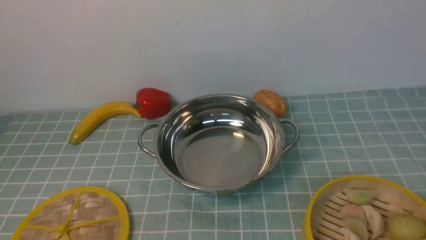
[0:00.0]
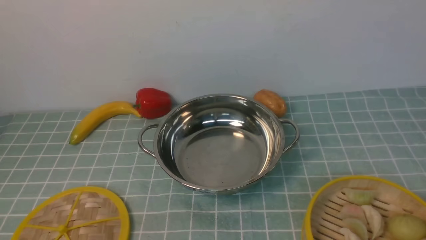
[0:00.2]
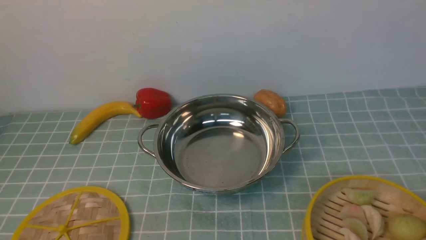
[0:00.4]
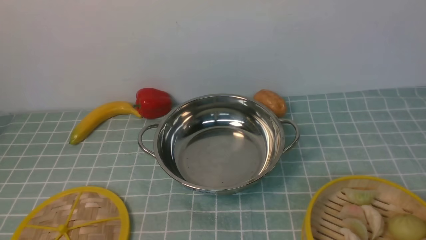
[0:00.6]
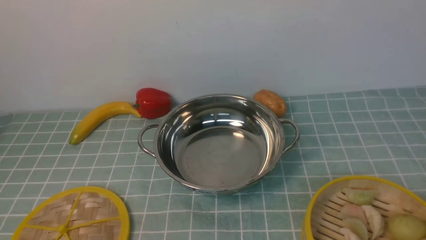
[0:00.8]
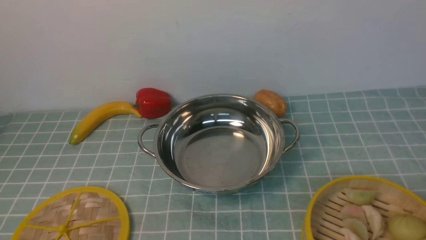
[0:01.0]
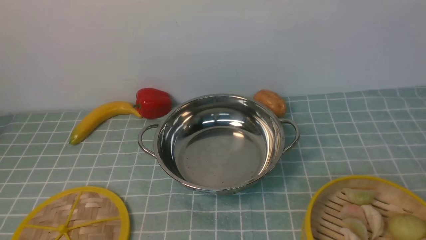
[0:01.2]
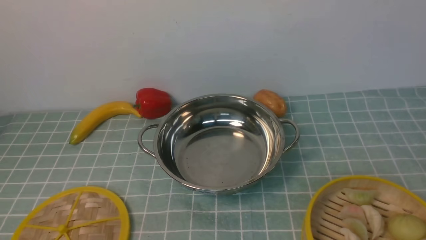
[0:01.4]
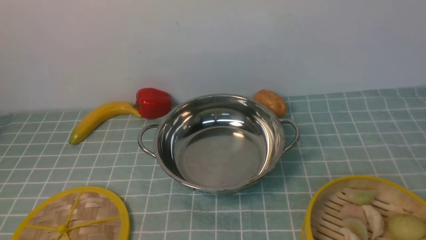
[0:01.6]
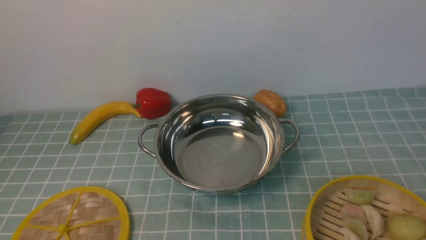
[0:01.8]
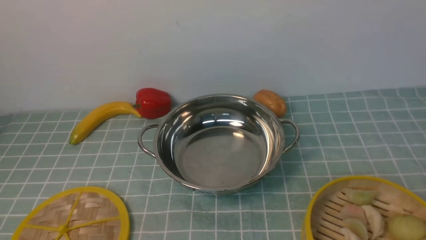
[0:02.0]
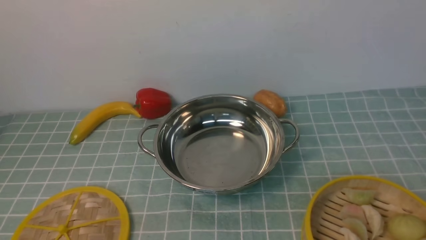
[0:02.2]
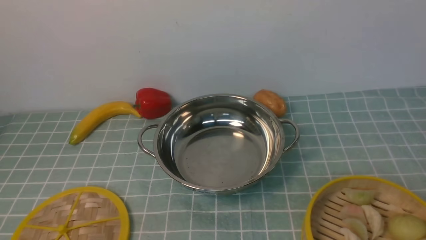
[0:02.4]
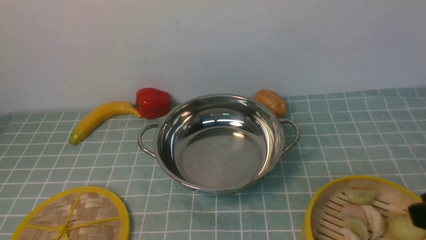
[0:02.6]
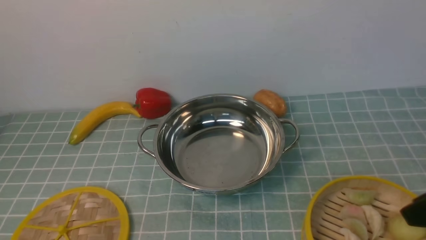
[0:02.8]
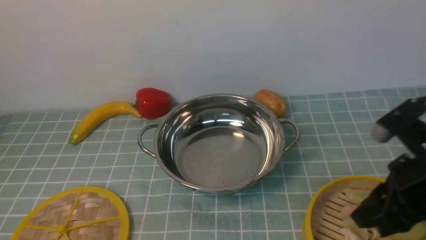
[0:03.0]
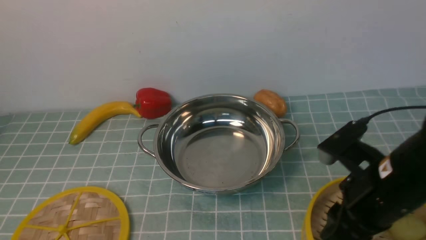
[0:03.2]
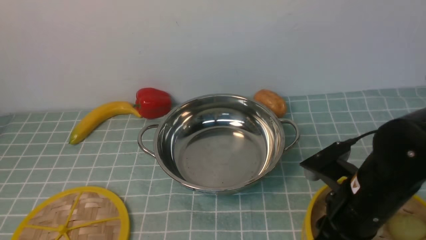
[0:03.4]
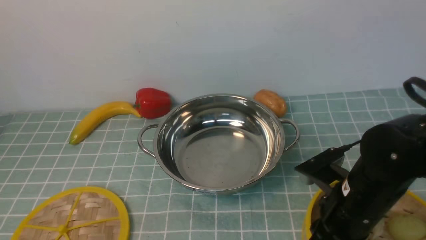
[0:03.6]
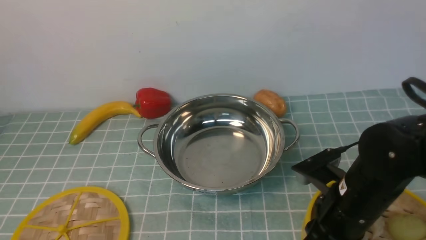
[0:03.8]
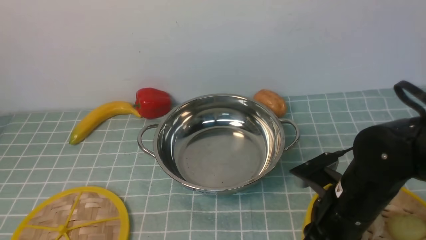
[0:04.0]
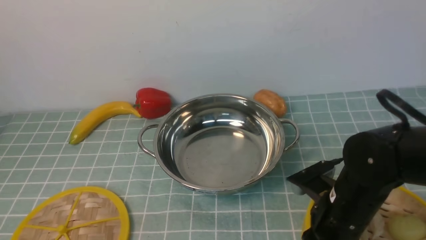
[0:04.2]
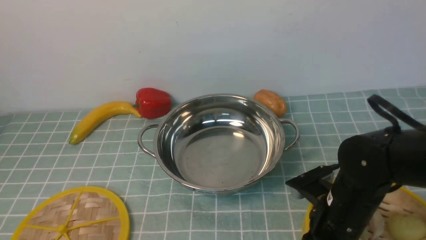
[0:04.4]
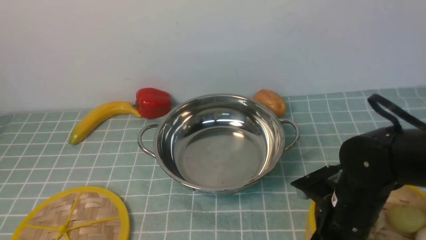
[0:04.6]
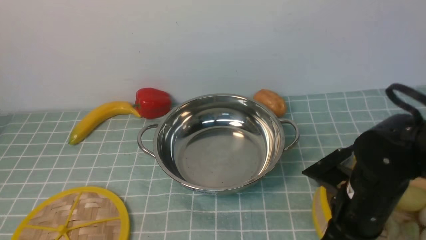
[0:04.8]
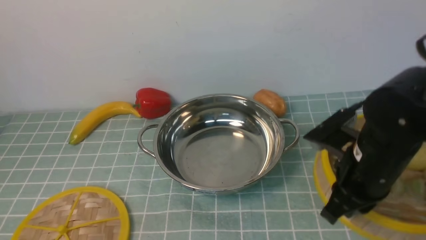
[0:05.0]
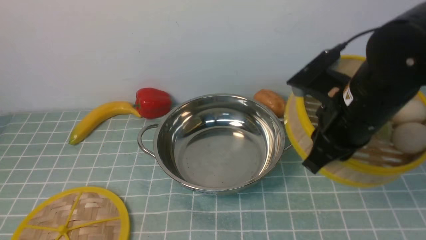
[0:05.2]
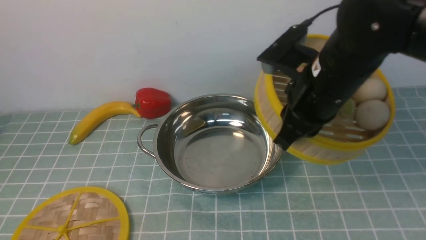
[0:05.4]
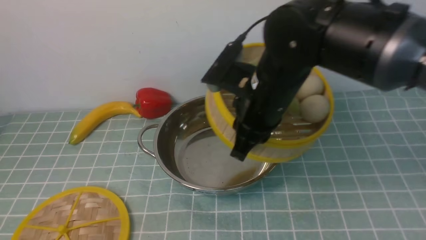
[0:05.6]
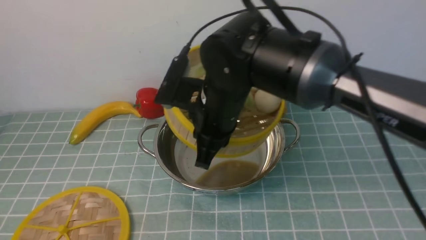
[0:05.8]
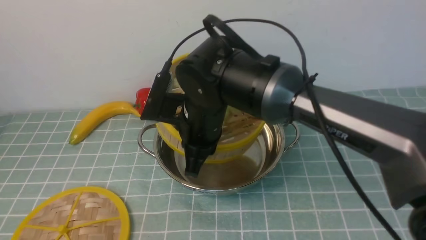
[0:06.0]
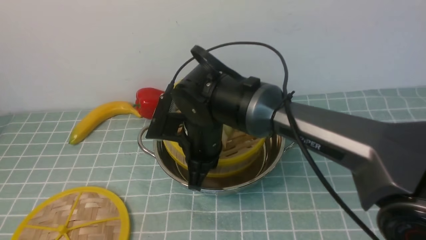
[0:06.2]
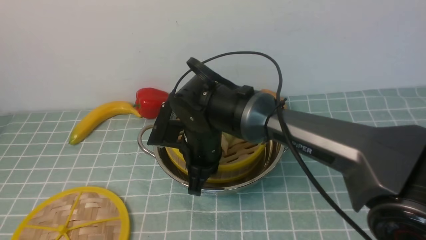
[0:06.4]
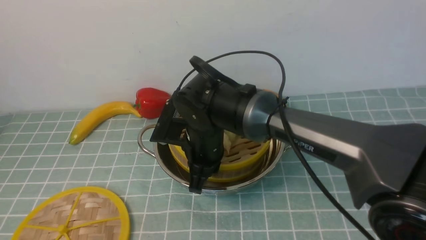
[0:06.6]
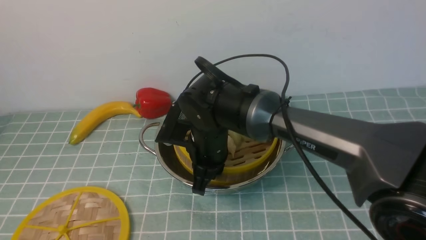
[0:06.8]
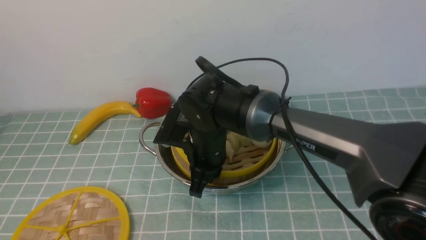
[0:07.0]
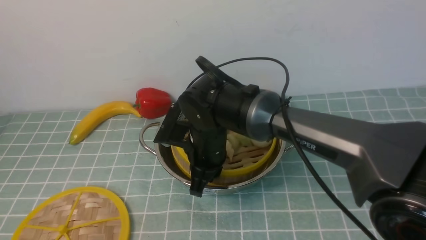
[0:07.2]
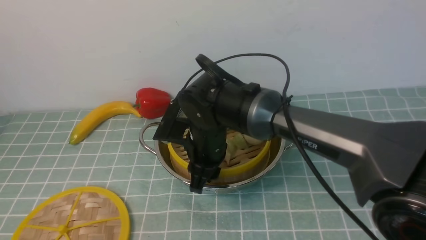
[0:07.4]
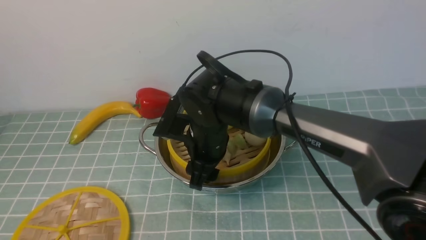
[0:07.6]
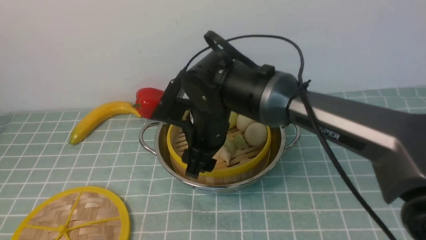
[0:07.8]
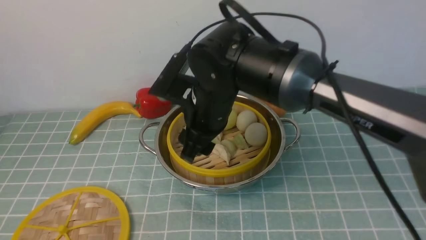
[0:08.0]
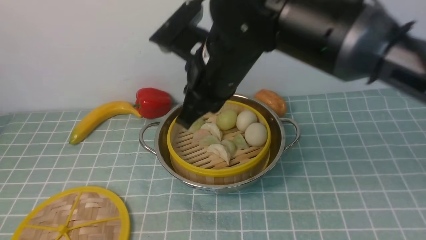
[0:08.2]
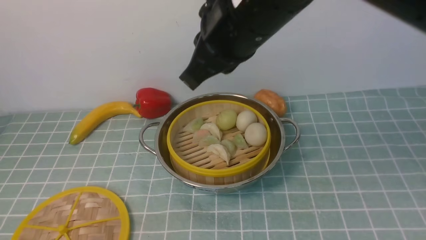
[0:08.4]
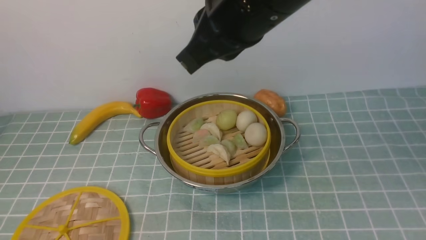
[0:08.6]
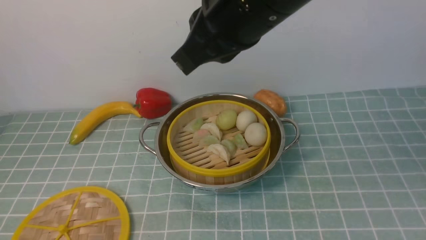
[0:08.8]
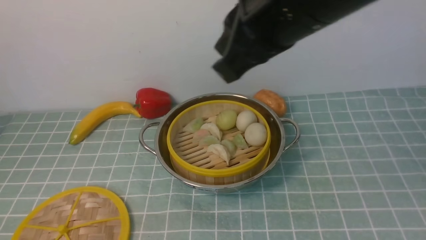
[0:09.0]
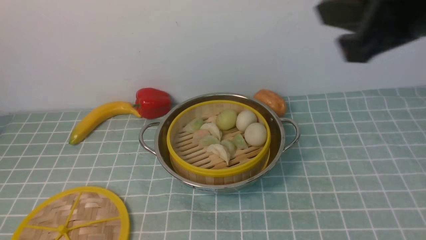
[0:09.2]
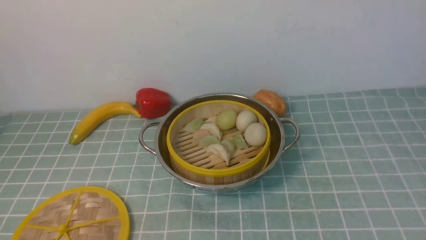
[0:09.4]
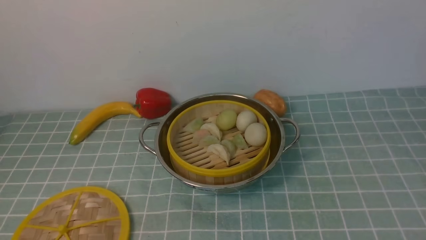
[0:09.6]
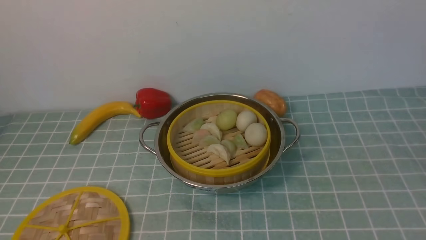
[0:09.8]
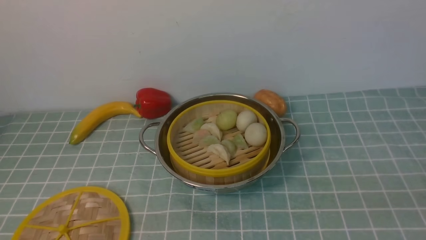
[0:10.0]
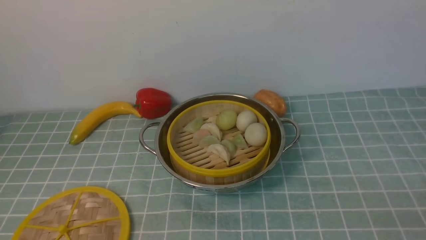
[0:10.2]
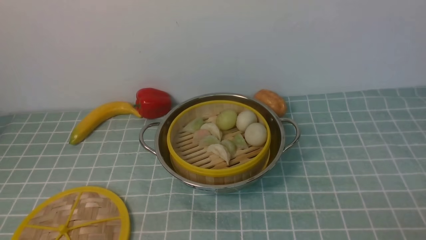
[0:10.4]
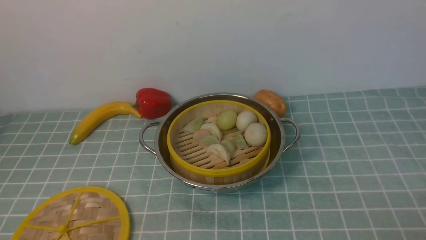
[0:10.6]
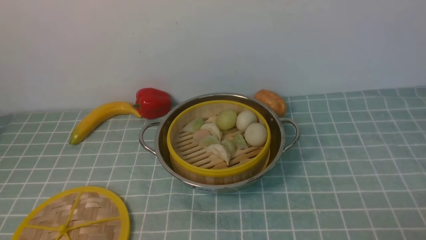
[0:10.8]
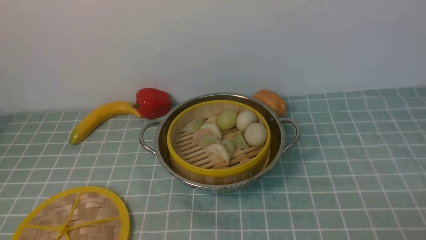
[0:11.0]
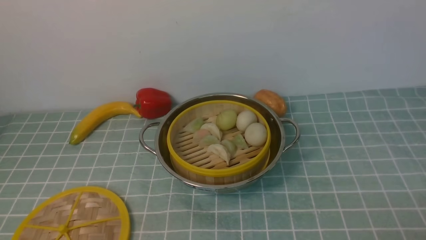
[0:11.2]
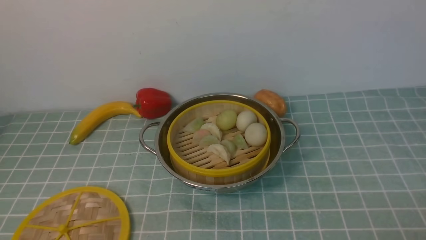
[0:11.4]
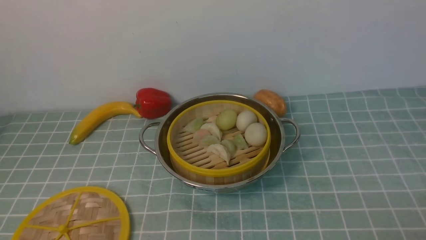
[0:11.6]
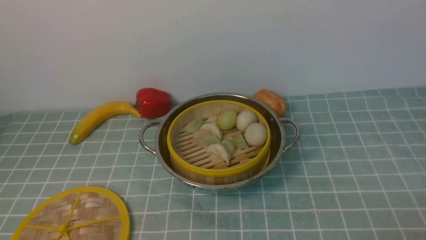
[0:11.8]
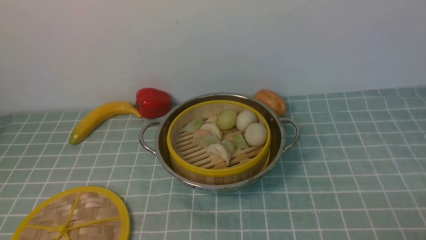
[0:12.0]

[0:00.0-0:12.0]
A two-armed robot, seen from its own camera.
Task of the whole recording: place the steamer in the pot on the blue tablecloth, and put the lid on the steamer.
Step, 0.0 to 5.0 s: use the right arm to lift the steamer closest to it.
Step, 5.4 to 7.8 s: use the right arm to put the steamer into the iron steamer pot in the middle.
1.6 to 3.0 s: The right gripper travels forward and downward by approximately 20 cm.
3.0 to 4.4 s: The right gripper shifts some 15 cm downward and to the left.
4.4 to 6.0 s: The right gripper heads to the left, forward and upward, covering about 20 cm, and closes.
6.0 to 7.6 s: The right gripper opens its fingers.
7.6 to 9.0 s: The right gripper heads upward, to the right and backward, covering approximately 30 cm, and closes.
9.0 to 10.4 s: The right gripper heads downward, to the right and backward, covering approximately 40 cm.

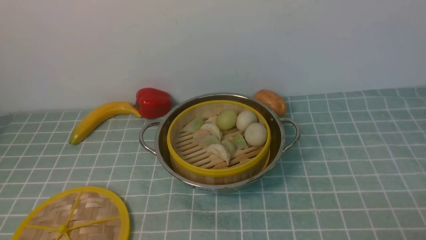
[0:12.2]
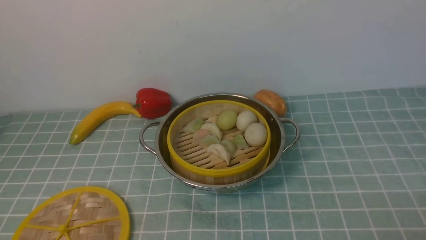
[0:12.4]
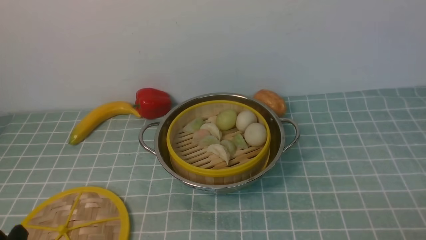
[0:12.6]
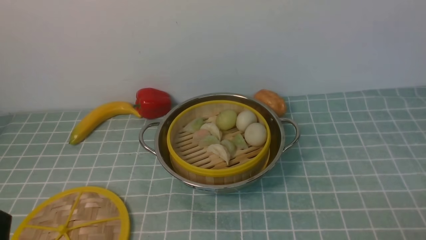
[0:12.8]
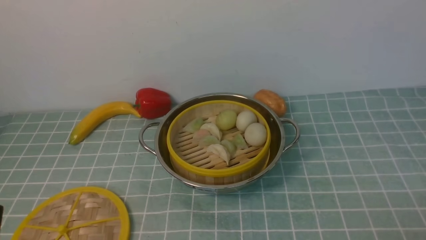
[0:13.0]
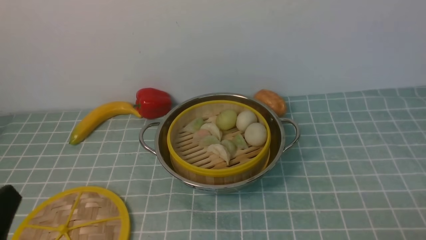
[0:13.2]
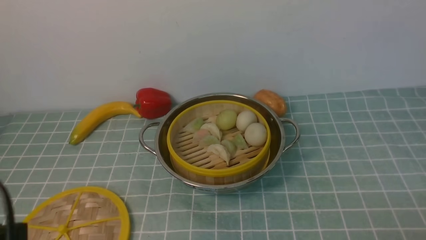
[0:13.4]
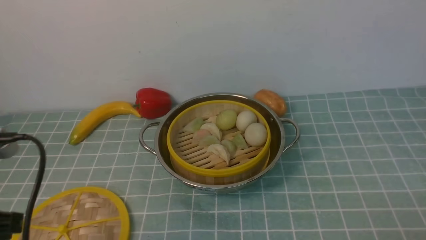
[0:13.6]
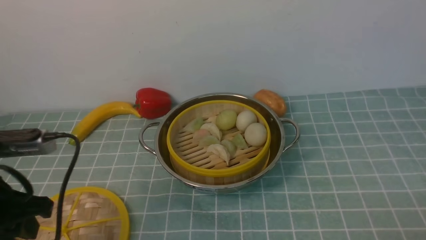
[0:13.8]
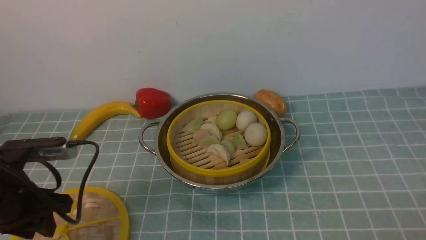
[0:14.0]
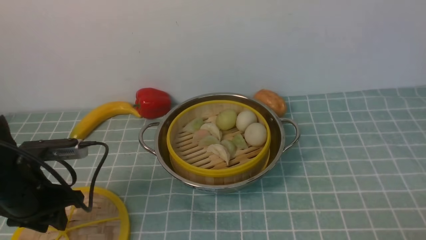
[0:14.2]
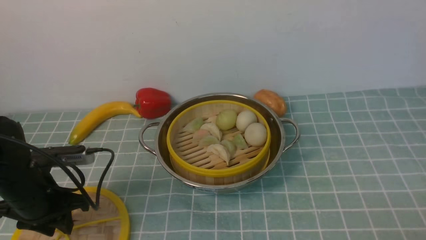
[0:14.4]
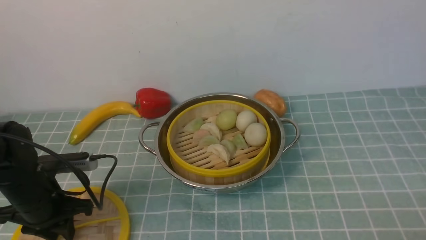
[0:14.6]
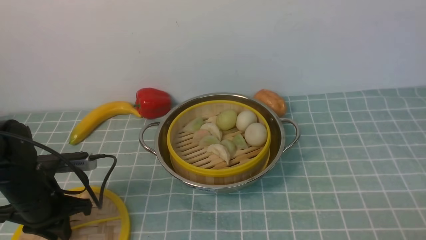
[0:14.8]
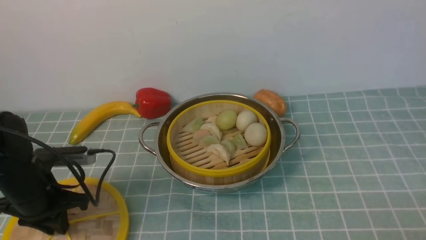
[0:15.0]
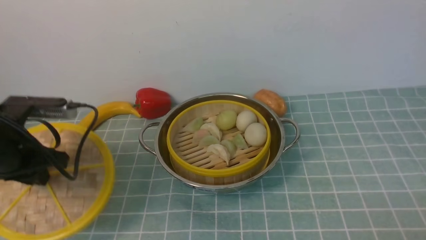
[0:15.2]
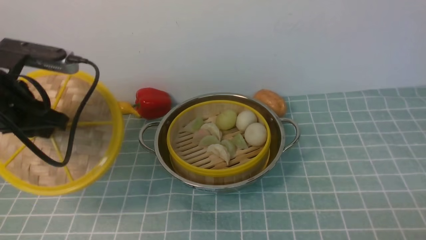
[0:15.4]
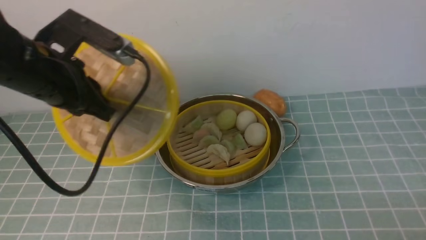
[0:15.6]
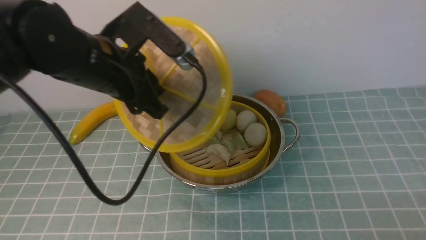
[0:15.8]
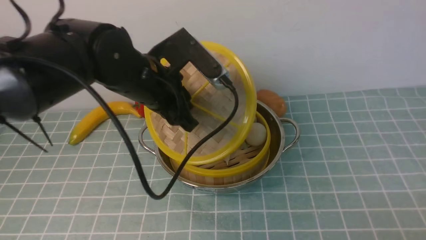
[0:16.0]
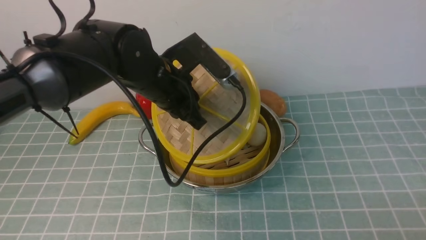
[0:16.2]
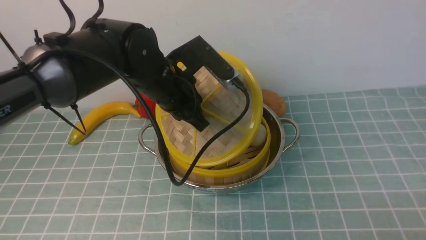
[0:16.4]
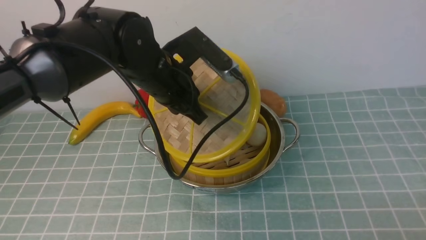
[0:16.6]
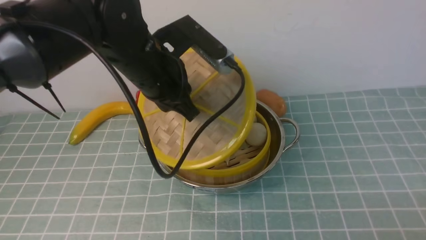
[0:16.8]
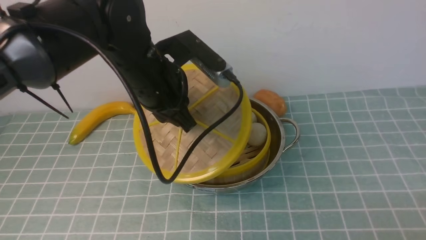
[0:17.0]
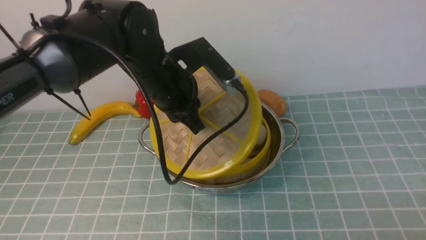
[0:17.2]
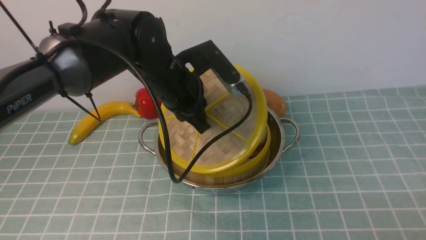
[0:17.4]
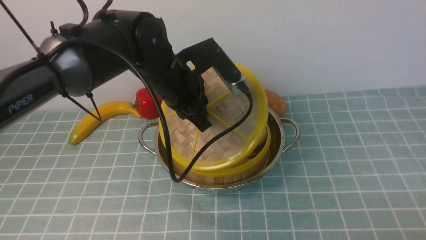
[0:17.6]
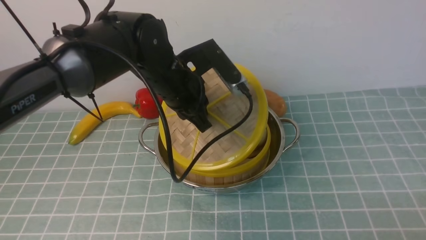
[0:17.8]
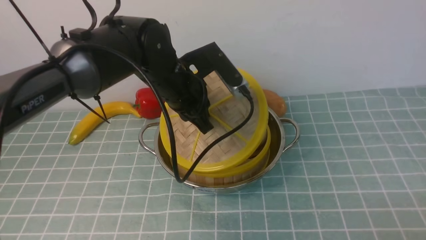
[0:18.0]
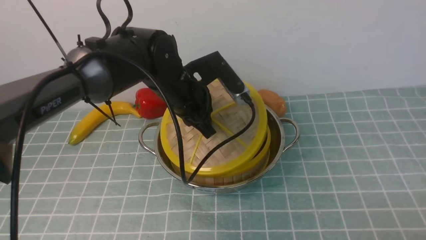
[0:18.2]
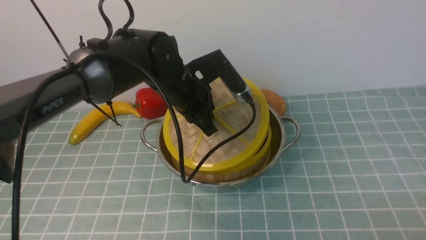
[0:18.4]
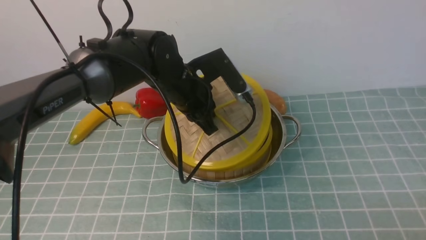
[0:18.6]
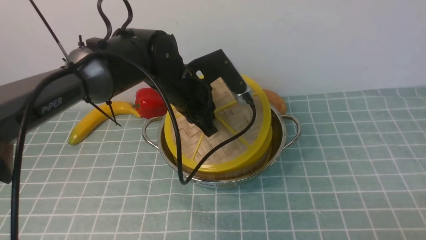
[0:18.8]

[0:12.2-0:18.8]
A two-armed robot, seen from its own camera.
Task of the whole recording: place the steamer in the pot on the blue tablecloth, and put the lid on the steamer.
Step, 12.2 to 15.2 s: use the left arm to lift the lid of the steamer.
12.2 to 13.8 s: The left gripper travels forward and upward by about 15 cm.
13.8 to 15.4 s: The left gripper goes approximately 10 cm forward, travels downward and back again, roughly 10 cm each way, and closes up.
15.4 to 17.2 s: The left gripper goes about 20 cm to the right and forward.
17.2 to 18.8 s: The left gripper shifts by roughly 5 cm.
